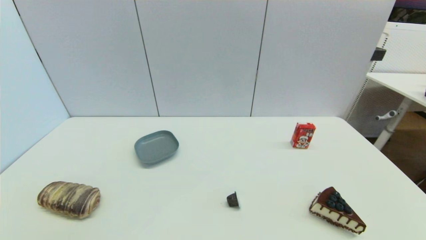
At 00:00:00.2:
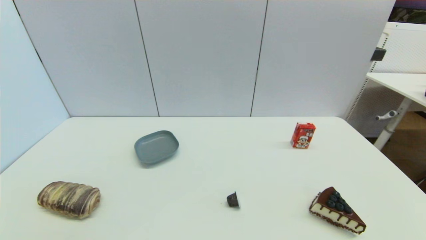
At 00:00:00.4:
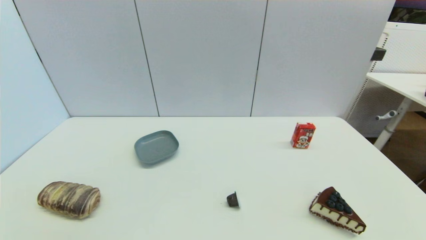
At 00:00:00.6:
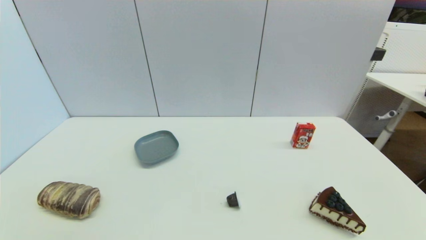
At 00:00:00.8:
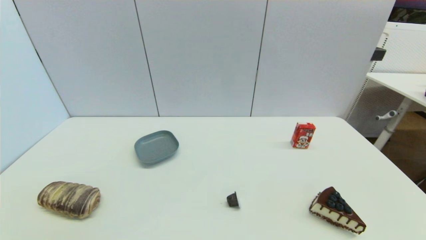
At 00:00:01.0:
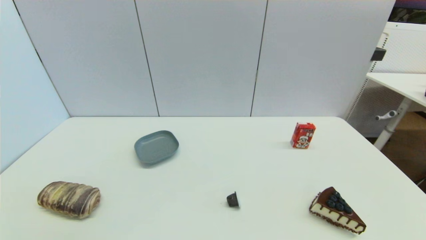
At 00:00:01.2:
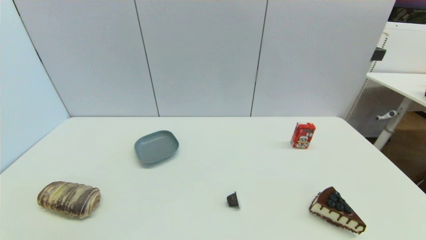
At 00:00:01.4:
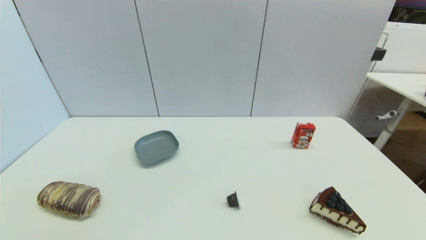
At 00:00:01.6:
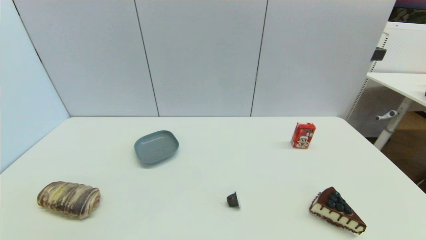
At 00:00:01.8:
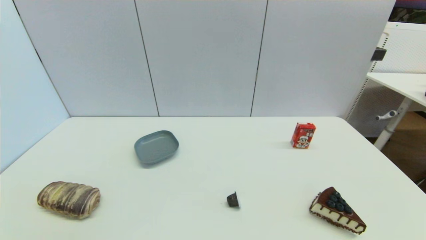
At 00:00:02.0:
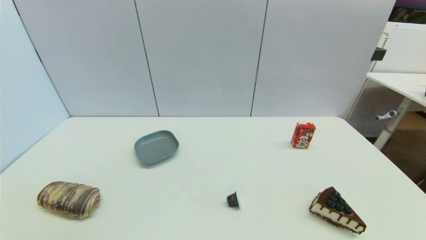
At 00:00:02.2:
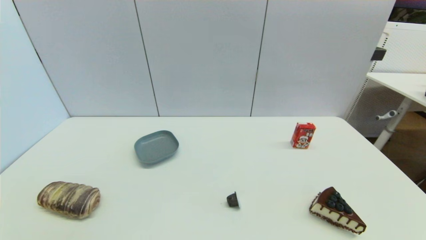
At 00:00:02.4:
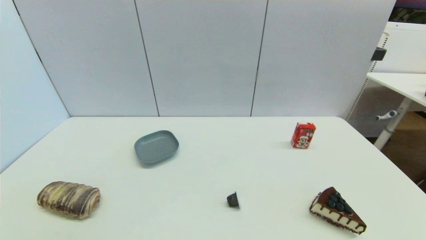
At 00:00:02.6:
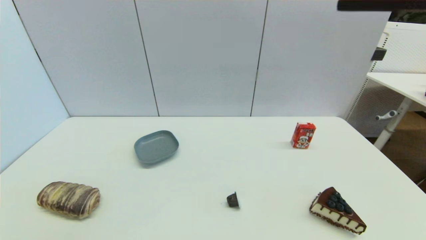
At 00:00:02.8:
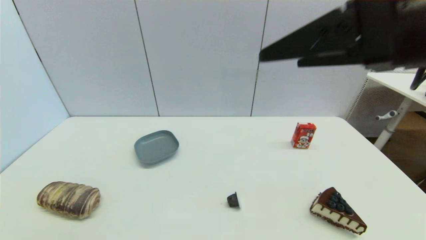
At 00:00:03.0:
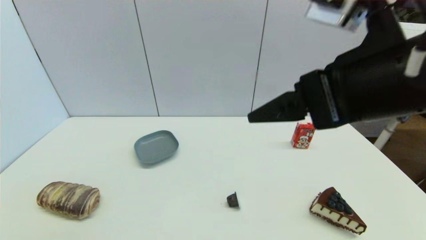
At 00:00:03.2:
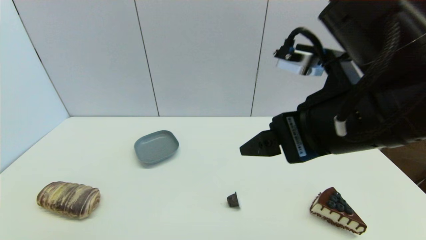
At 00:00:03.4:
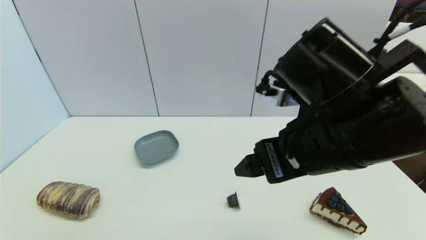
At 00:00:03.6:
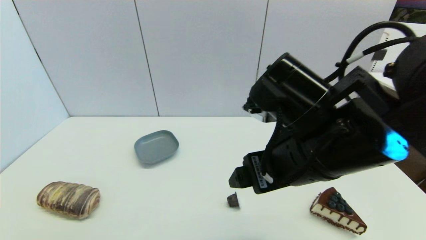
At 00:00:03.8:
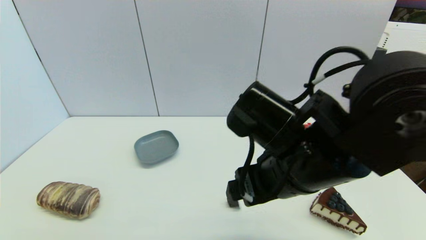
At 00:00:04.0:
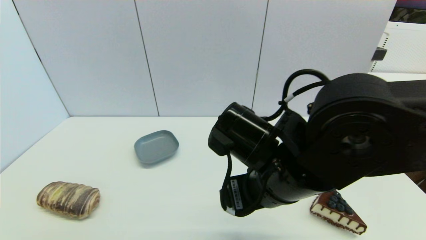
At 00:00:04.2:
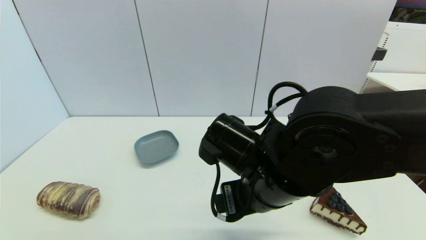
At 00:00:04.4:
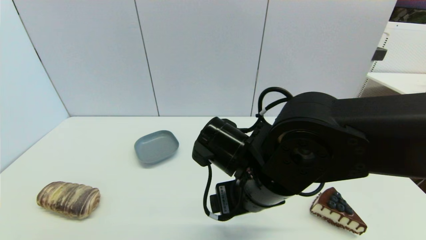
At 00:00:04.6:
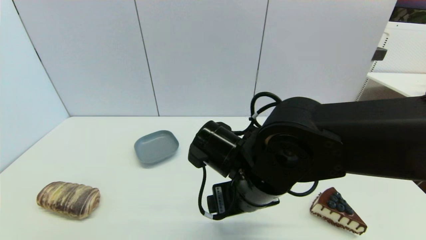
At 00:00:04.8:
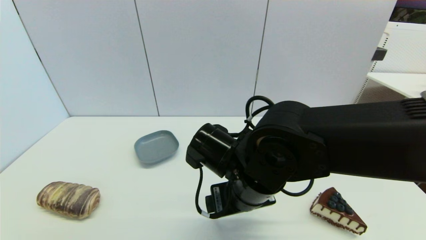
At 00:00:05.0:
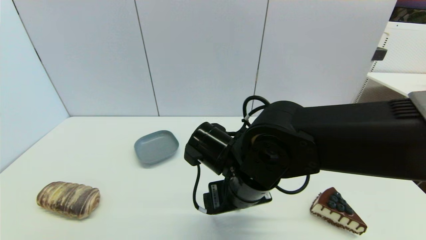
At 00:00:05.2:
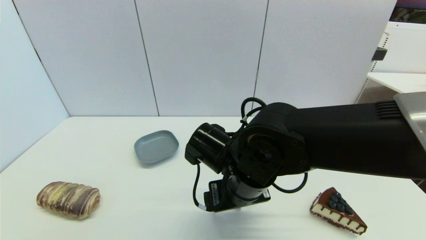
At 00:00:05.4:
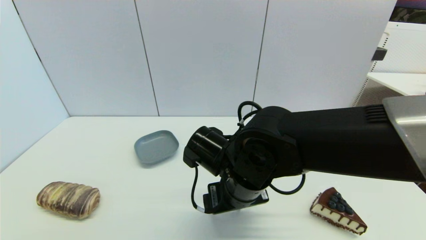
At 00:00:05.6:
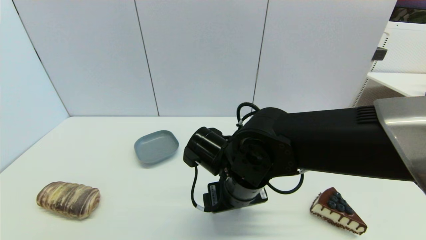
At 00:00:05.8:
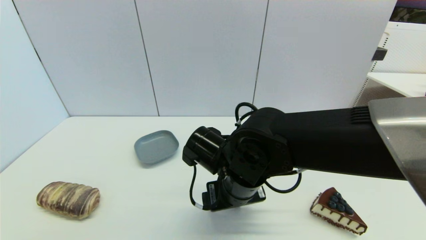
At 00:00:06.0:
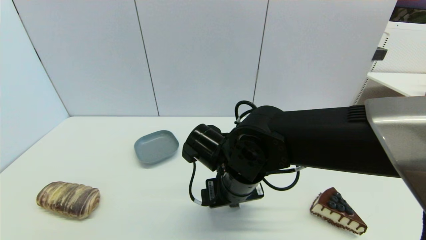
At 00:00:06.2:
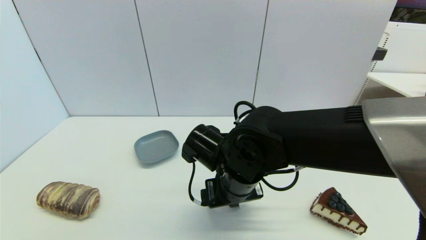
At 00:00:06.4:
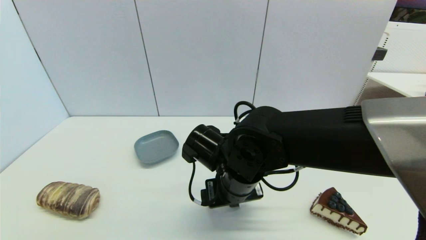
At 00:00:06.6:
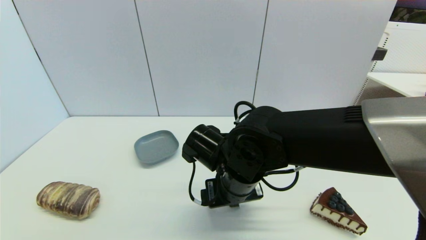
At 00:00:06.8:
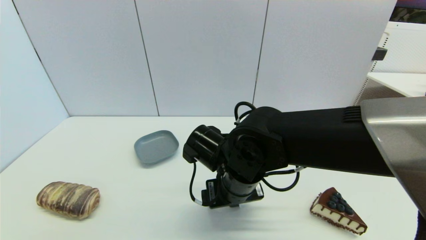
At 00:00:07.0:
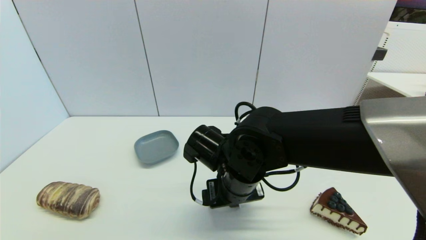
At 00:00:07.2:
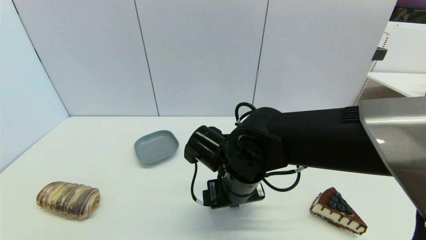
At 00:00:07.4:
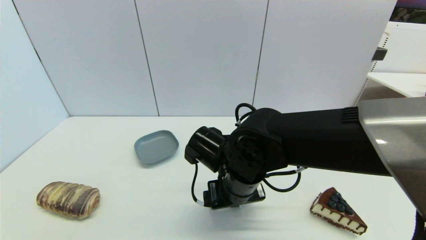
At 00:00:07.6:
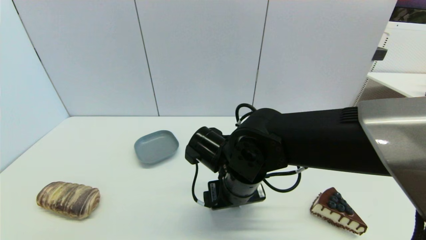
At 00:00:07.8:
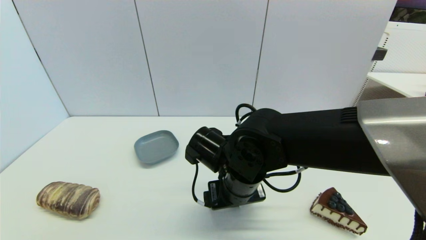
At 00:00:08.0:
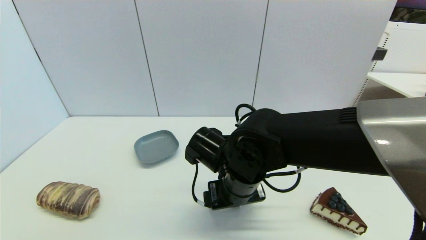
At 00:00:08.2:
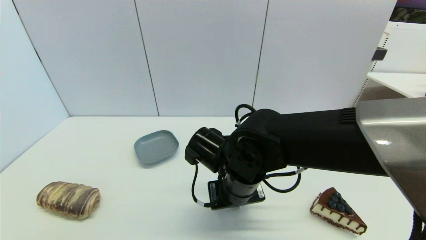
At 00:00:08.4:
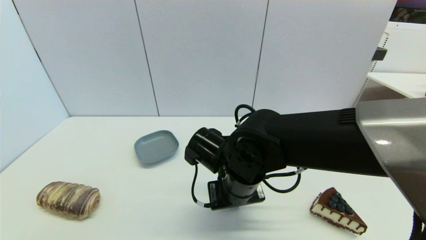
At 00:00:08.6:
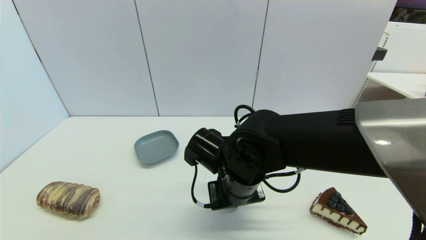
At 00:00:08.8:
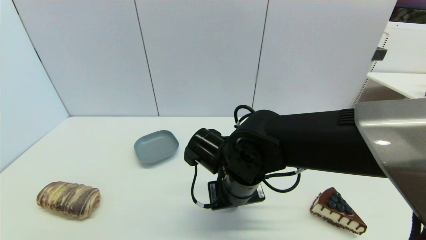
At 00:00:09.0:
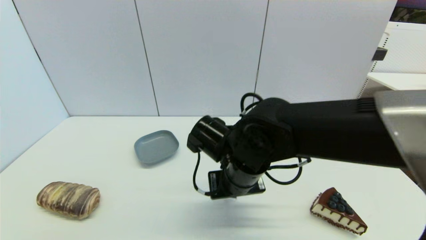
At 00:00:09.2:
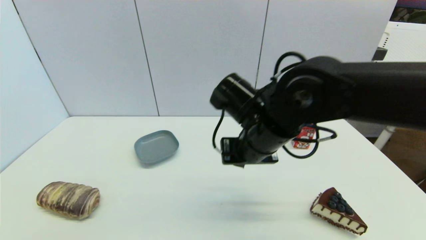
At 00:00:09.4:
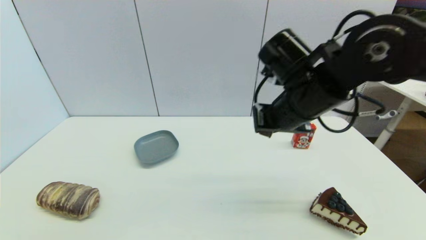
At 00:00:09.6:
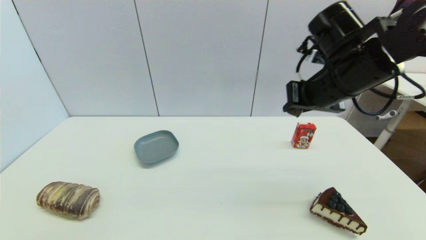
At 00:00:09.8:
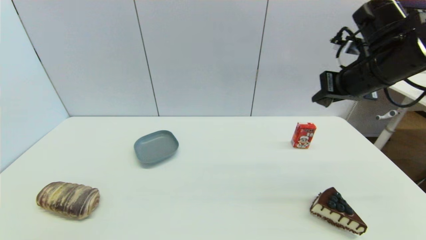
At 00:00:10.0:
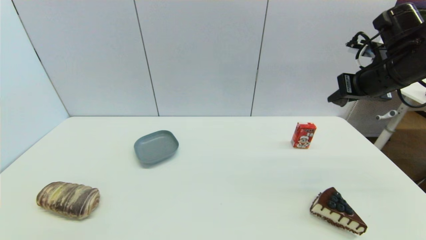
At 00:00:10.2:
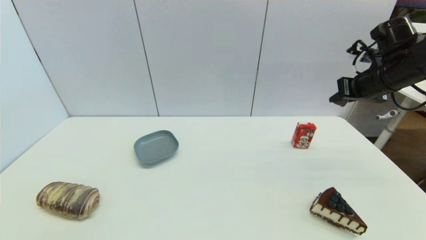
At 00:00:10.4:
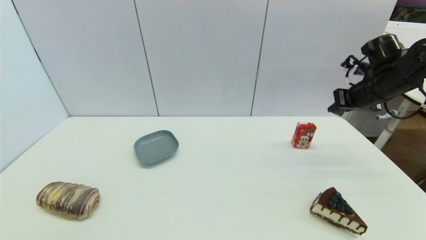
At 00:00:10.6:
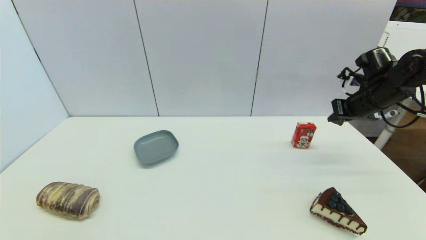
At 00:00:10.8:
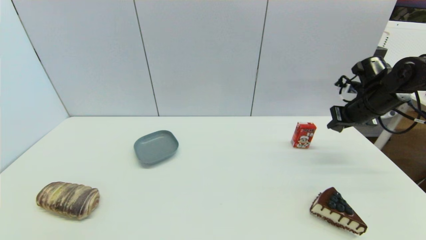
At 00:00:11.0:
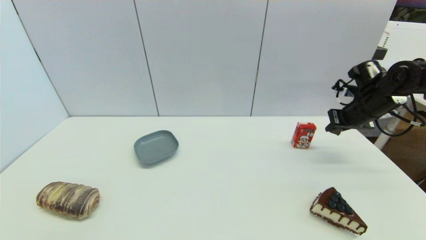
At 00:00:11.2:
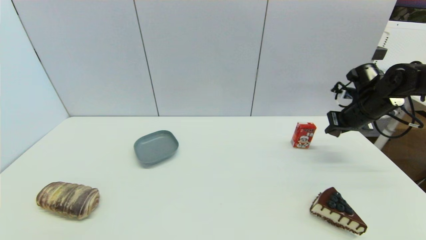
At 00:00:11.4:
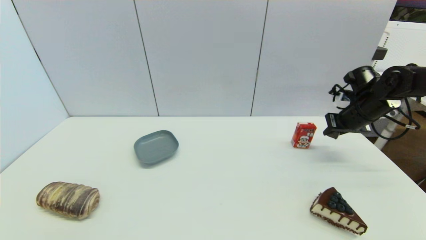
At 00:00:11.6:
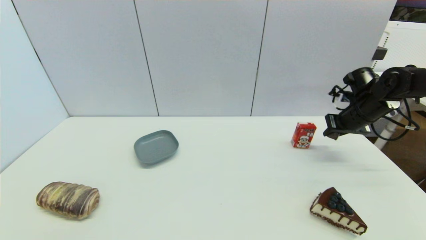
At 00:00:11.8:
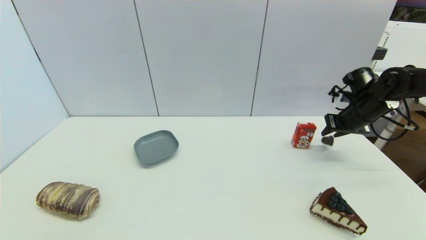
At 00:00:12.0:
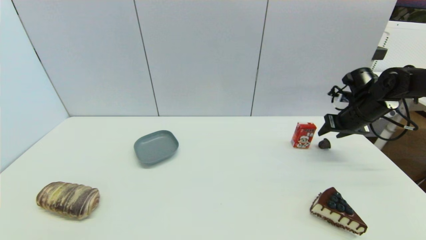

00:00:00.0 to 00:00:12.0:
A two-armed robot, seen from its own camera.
Step, 00:00:02.6 to 00:00:08.6: Grasp the coffee capsule with right gripper.
00:00:01.6 to 00:00:03.0: The right gripper goes approximately 20 cm to the left and forward.
00:00:03.0 to 00:00:04.4: The right gripper shifts some 20 cm downward and to the left.
00:00:04.4 to 00:00:06.0: The right gripper ends up roughly 5 cm from where it was.
00:00:06.0 to 00:00:07.6: Both grippers stay about where they are.
00:00:07.6 to 00:00:09.0: The right gripper closes up.
00:00:09.0 to 00:00:10.4: The right gripper shifts some 35 cm to the right and forward.
00:00:10.4 to 00:00:12.0: The right gripper goes some 5 cm downward, and opens.

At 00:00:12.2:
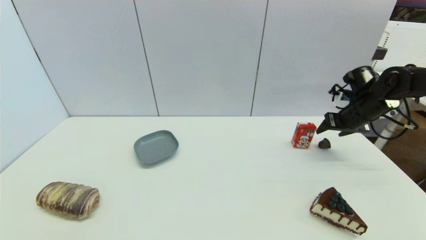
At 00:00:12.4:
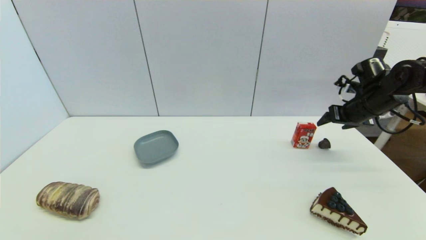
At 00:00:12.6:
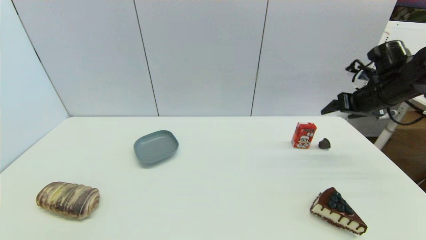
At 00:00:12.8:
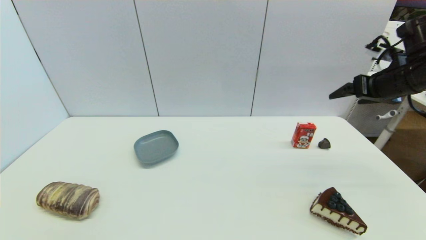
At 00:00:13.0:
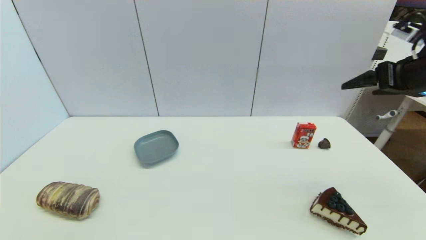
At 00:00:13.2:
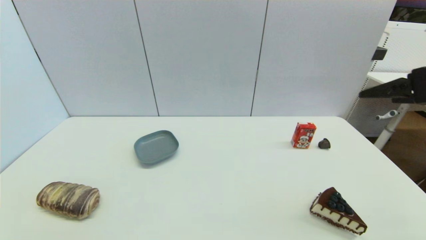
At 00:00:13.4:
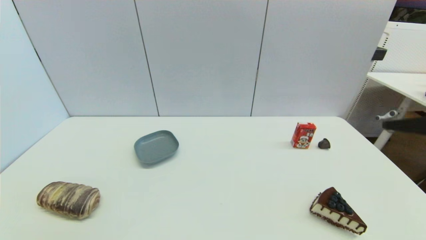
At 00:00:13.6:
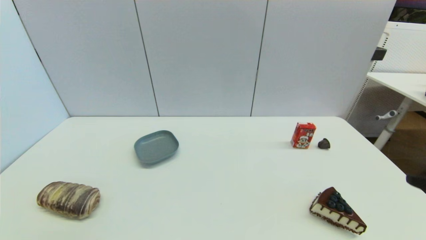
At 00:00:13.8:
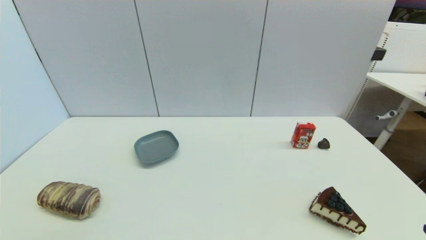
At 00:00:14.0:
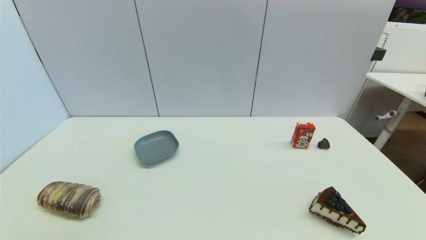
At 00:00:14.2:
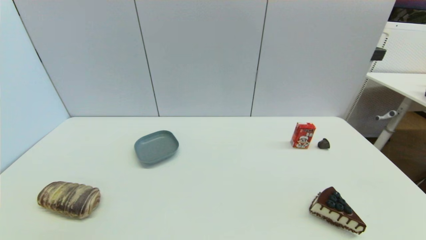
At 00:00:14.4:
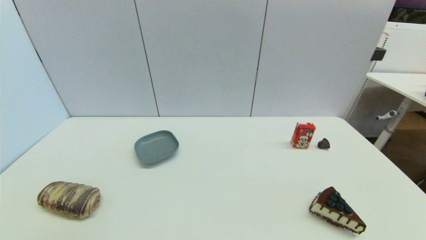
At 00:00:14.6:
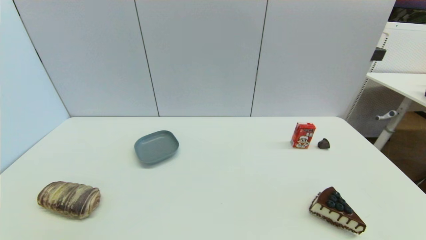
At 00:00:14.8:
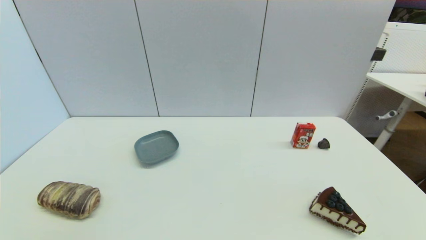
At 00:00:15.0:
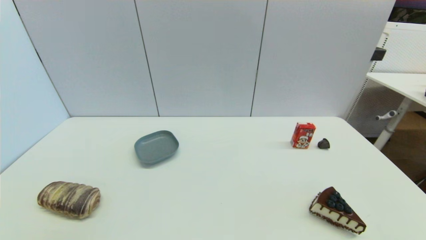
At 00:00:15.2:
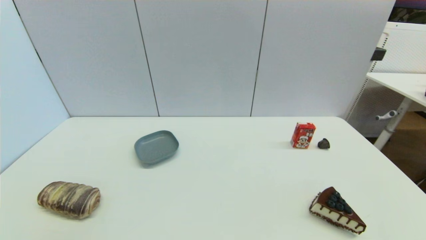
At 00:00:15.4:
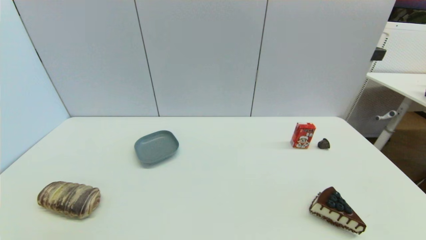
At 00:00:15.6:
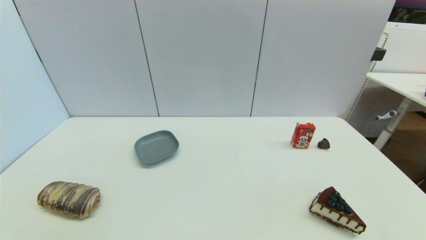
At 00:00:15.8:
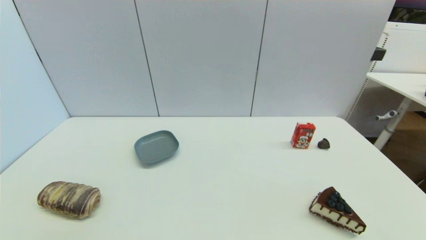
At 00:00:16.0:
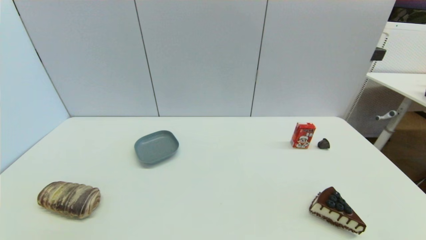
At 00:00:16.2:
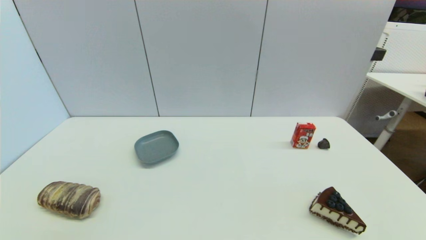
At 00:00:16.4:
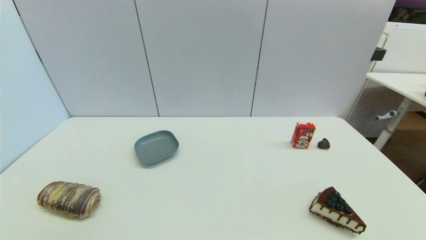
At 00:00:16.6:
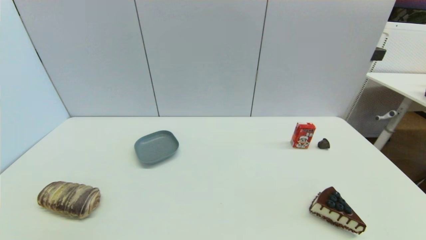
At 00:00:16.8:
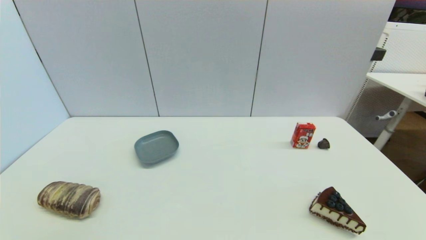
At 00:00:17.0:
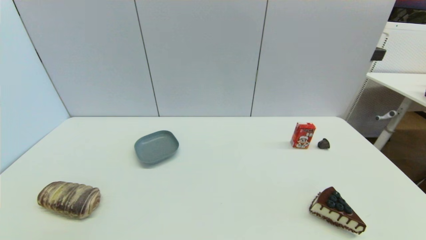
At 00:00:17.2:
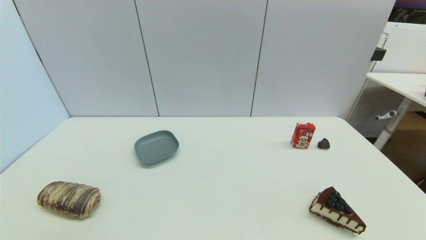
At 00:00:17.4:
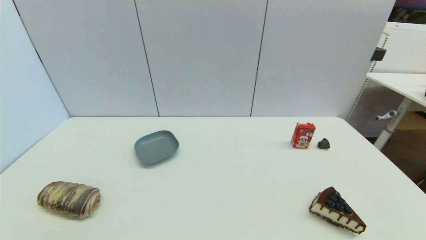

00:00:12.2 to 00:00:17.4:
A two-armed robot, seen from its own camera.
00:00:12.2 to 00:00:14.0: The right gripper shifts some 40 cm backward, and opens up.
